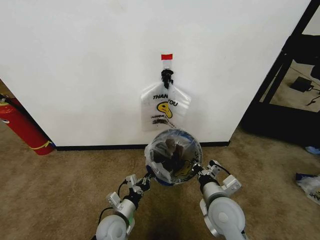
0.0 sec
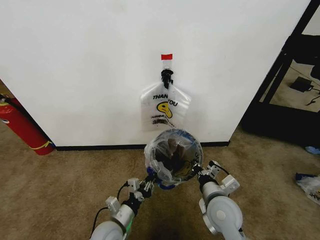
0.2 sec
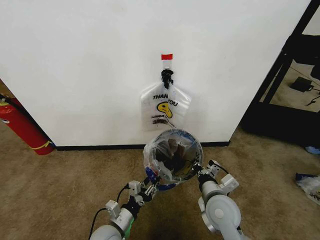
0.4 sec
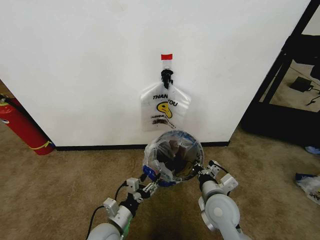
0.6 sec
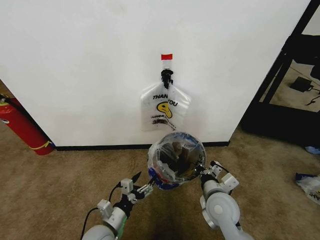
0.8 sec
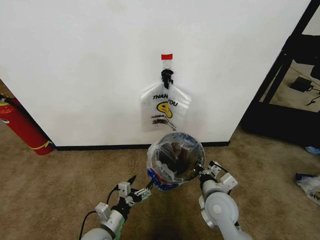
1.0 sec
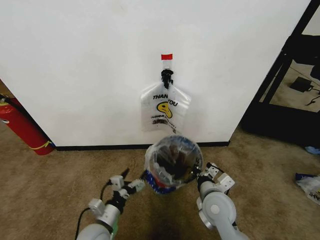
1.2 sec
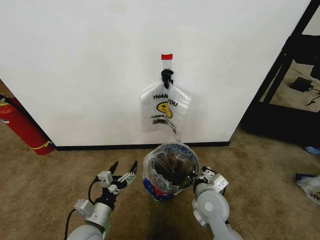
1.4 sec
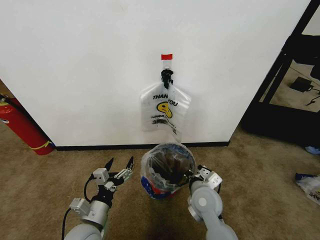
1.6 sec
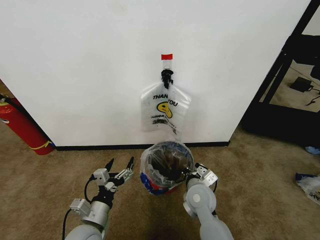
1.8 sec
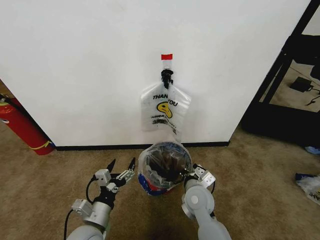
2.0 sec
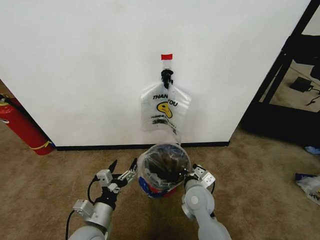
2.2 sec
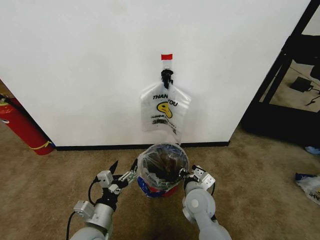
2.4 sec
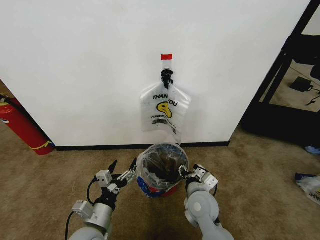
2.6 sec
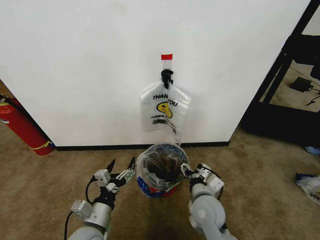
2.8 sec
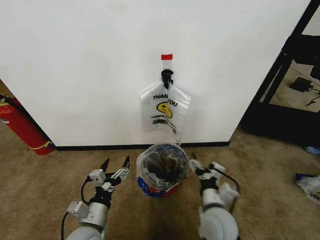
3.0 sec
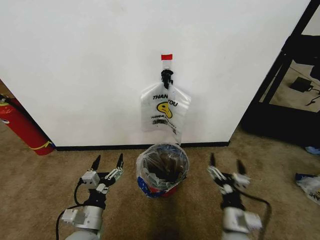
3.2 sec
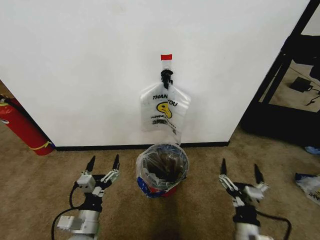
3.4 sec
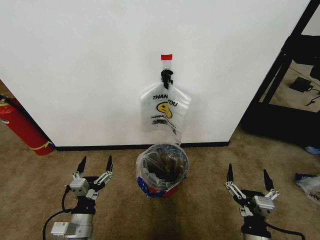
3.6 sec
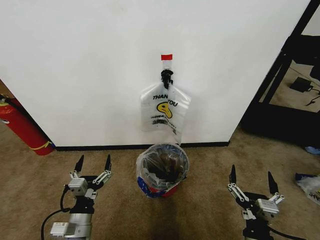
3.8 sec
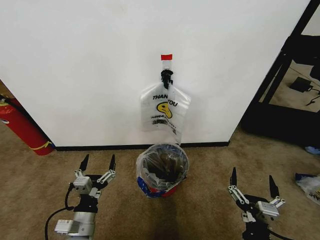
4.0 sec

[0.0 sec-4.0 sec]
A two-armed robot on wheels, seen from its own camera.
Task of the whole recording: Pick up the garbage bag from the wall and place it over the trash bin.
0.0 sec to 1.4 sec: The left gripper heads upward and to the left, covering approximately 10 cm, and opens up.
1.4 sec to 2.6 sec: The right gripper opens up.
2.6 sec to 4.0 sec: The right gripper travels backward and to the right by approximately 20 cm, and opens.

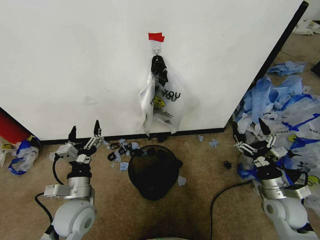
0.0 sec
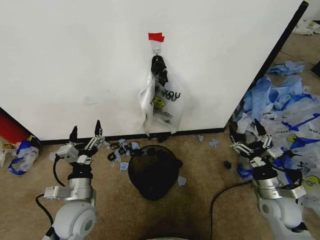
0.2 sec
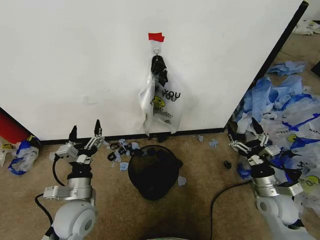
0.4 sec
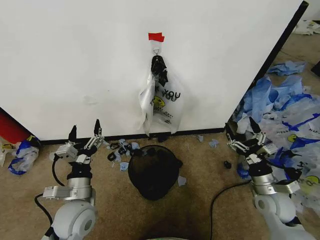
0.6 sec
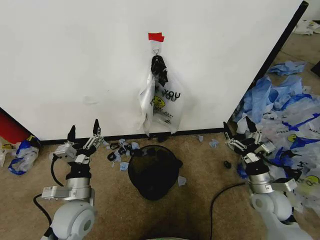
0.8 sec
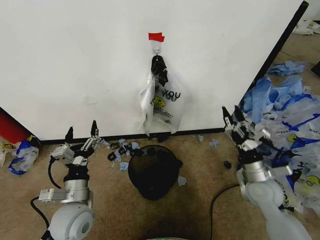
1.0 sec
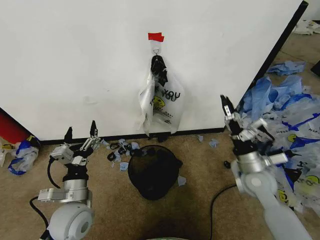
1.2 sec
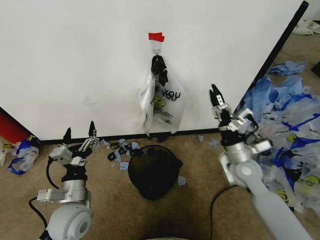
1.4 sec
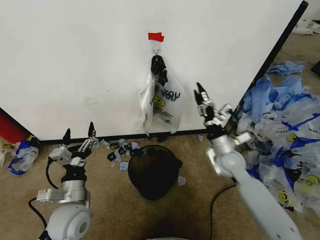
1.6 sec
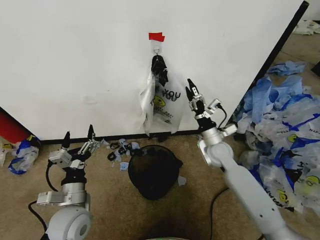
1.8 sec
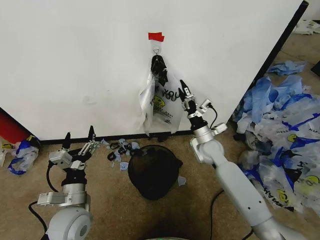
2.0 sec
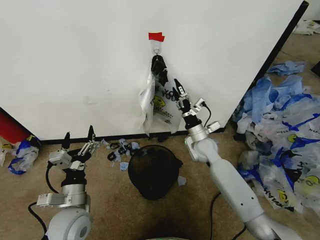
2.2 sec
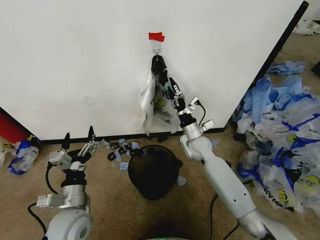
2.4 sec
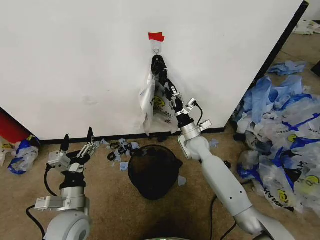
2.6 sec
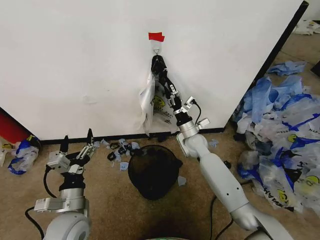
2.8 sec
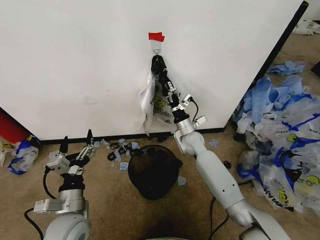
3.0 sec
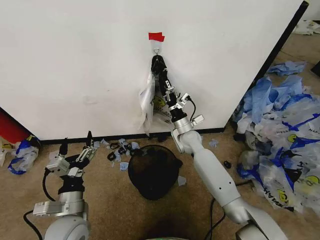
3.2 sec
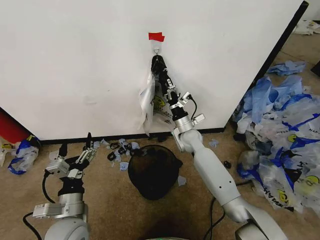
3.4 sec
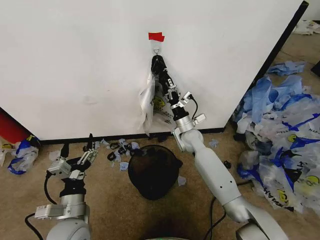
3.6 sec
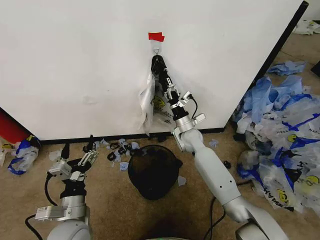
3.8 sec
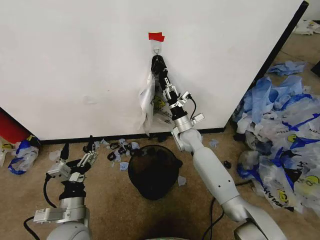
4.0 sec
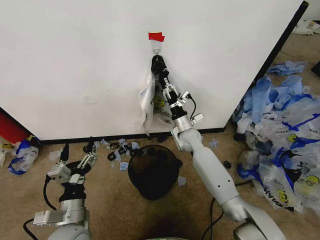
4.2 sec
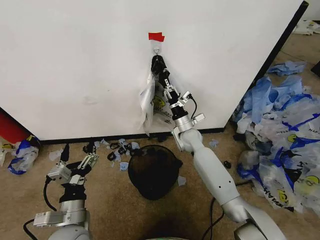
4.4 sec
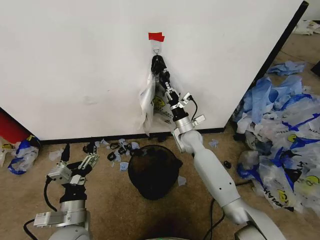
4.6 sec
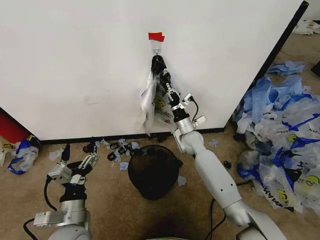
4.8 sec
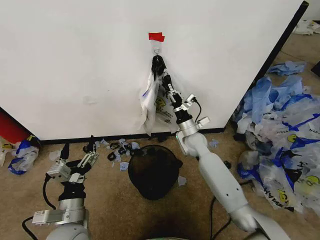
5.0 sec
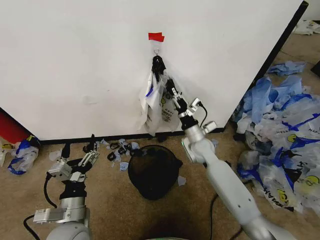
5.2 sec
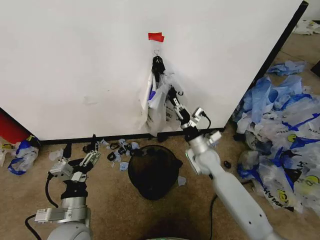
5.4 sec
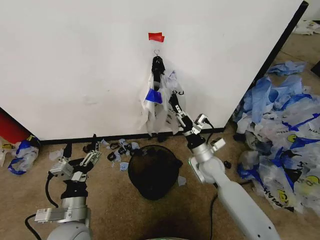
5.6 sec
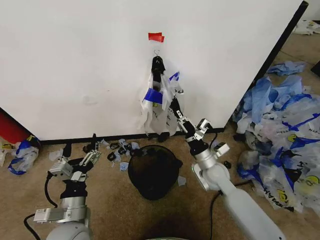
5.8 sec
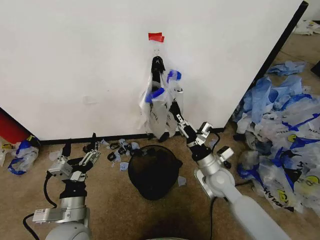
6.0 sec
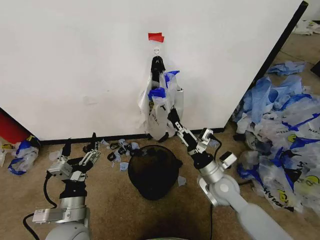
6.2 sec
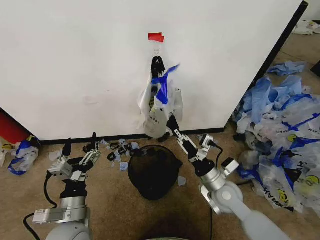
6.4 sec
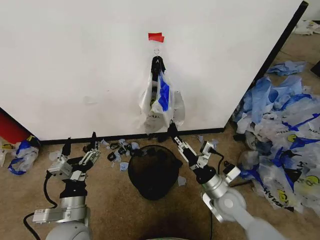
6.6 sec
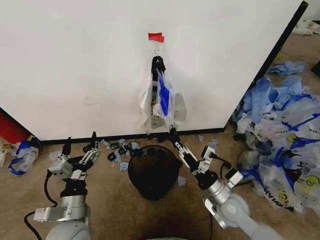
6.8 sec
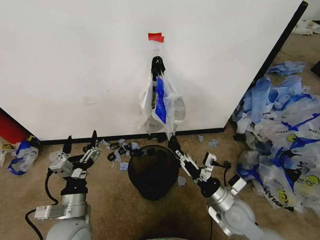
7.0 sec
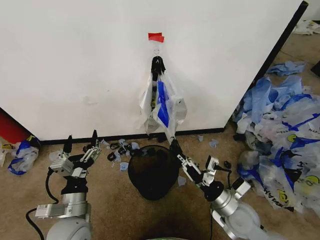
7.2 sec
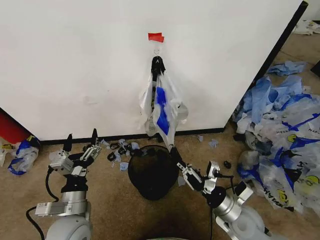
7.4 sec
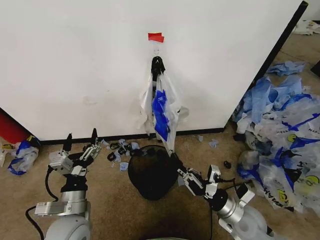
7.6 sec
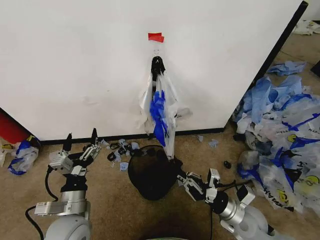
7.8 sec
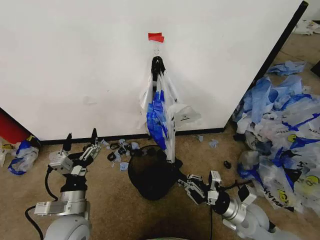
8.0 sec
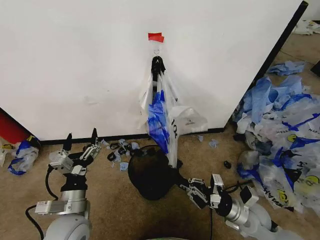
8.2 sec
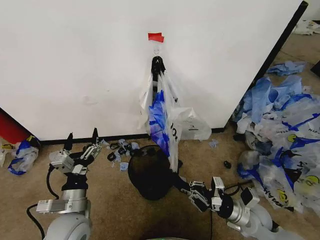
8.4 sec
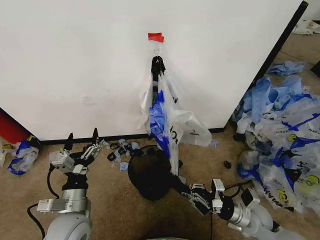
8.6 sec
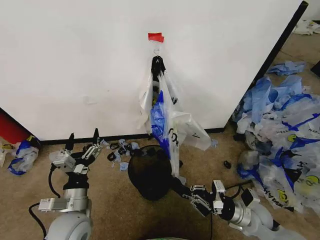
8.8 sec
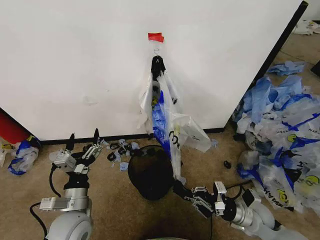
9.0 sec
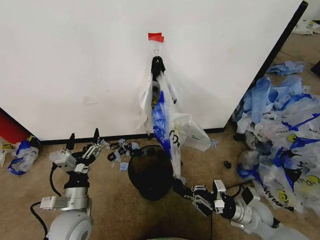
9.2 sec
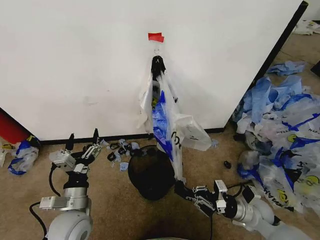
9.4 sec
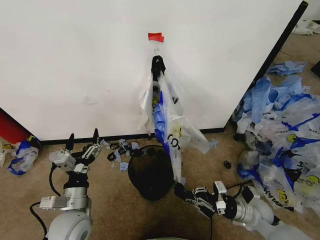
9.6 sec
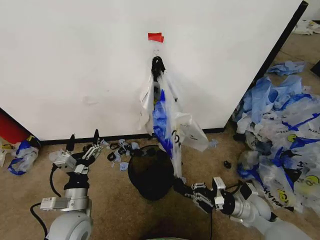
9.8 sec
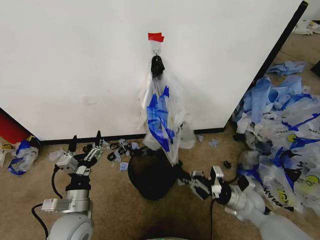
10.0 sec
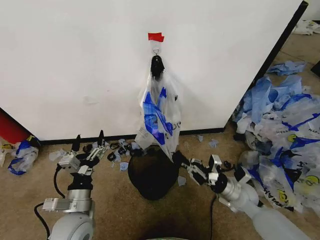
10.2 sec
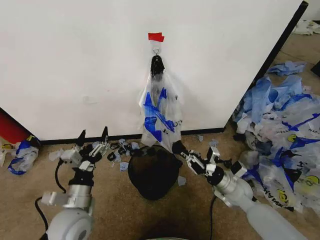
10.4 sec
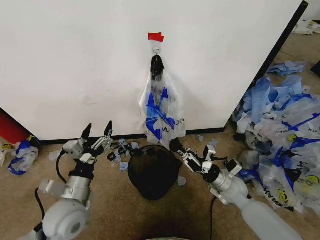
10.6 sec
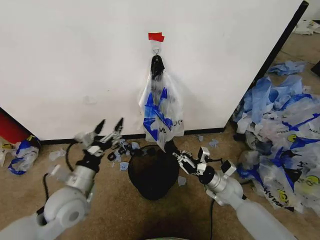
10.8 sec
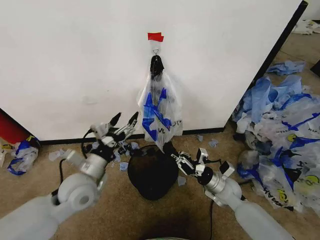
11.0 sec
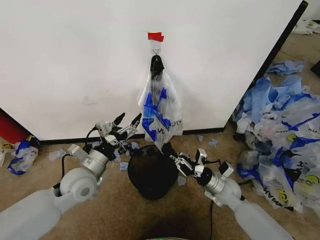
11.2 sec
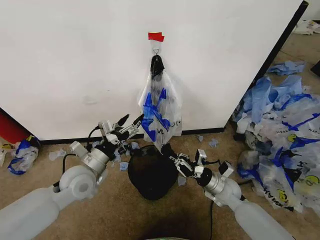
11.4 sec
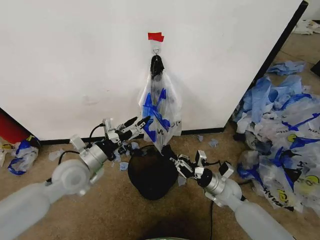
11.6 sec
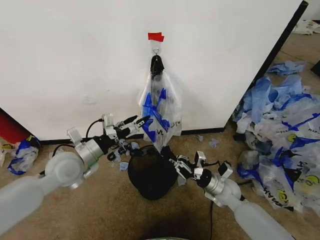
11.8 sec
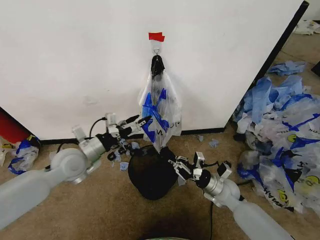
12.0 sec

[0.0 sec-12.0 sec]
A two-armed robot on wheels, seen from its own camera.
Task of the whole recording: Pick up the garbage bag from the wall and place it over the trash bin.
1.6 sec to 3.0 sec: The right gripper is displaced forward and to the left by about 15 cm.
3.0 sec to 4.4 sec: The right gripper closes.
4.4 sec to 6.0 sec: The right gripper goes about 15 cm backward.
6.0 sec to 7.6 sec: The right gripper goes roughly 15 cm backward and to the right.
7.6 sec to 9.0 sec: The right gripper heads to the right, covering about 5 cm.
9.0 sec to 10.4 sec: The right gripper shifts some 10 cm forward.
10.4 sec to 12.0 sec: The left gripper is displaced forward and upward by some 15 cm.

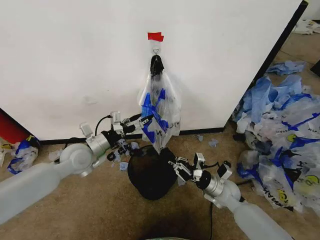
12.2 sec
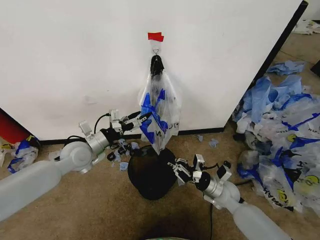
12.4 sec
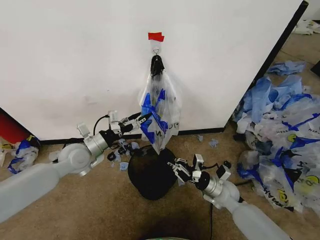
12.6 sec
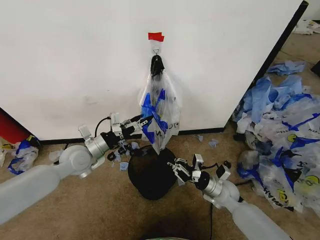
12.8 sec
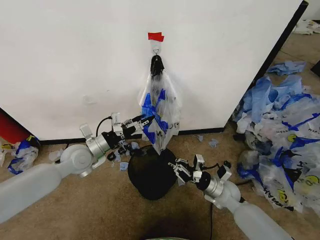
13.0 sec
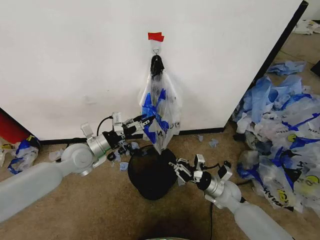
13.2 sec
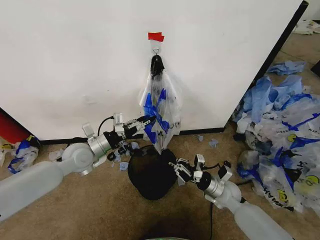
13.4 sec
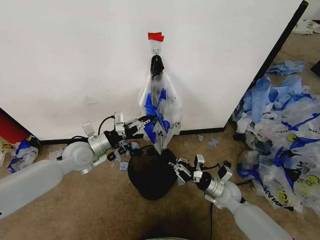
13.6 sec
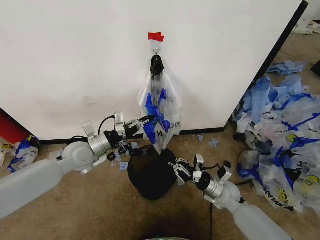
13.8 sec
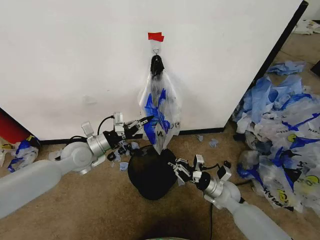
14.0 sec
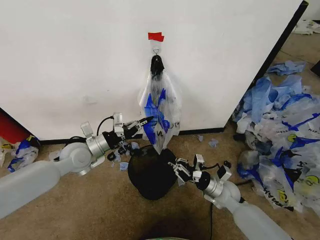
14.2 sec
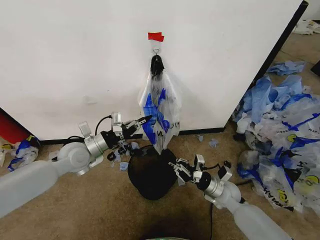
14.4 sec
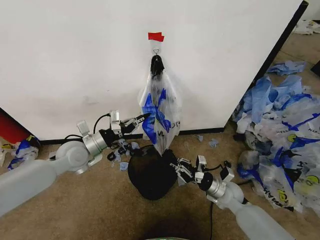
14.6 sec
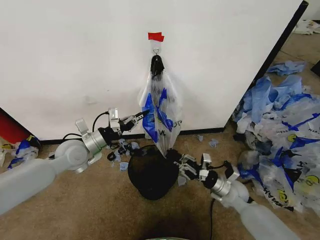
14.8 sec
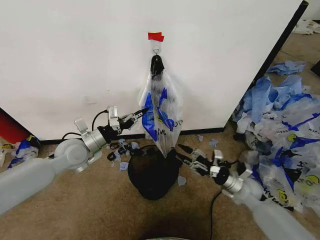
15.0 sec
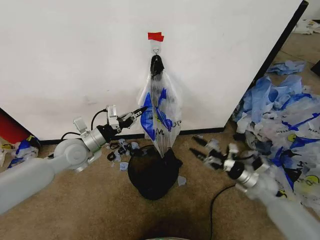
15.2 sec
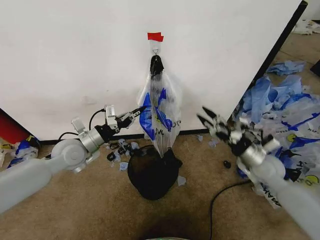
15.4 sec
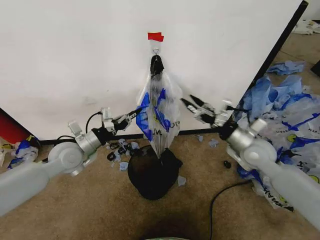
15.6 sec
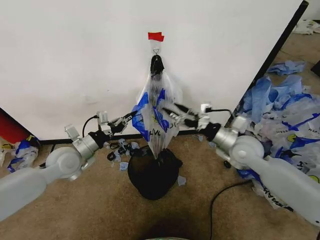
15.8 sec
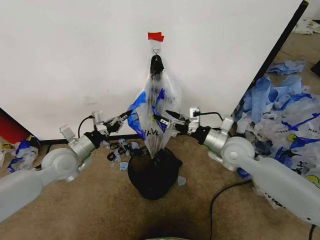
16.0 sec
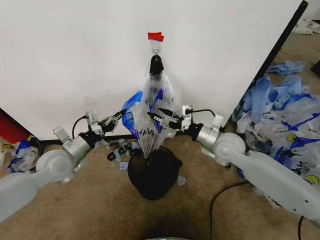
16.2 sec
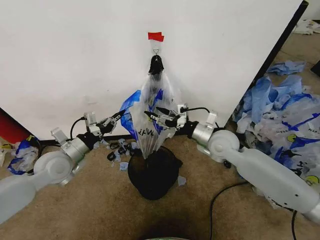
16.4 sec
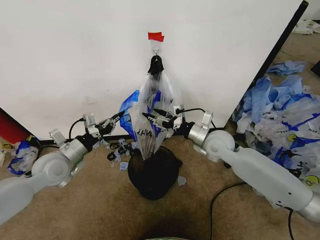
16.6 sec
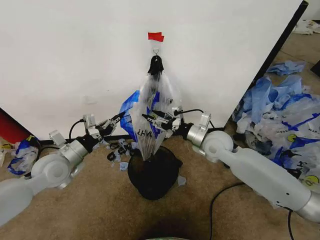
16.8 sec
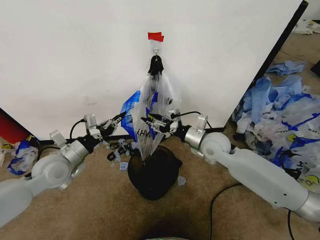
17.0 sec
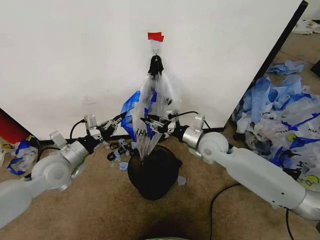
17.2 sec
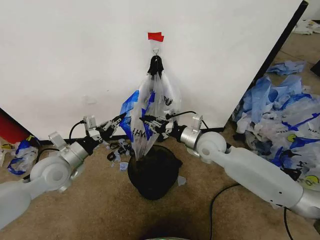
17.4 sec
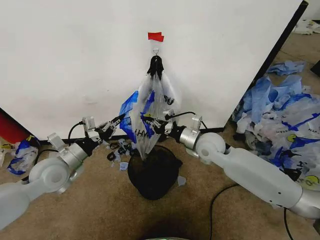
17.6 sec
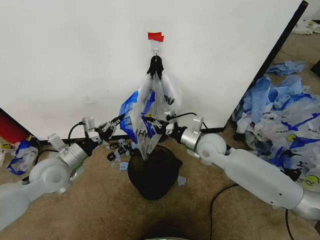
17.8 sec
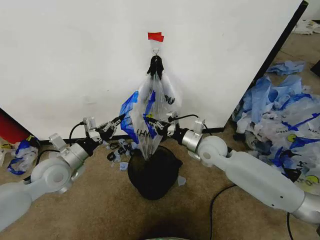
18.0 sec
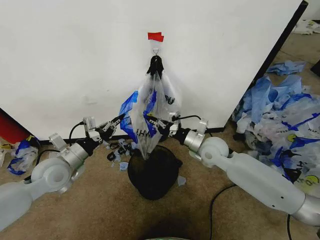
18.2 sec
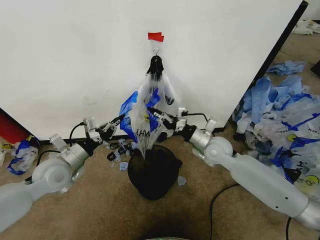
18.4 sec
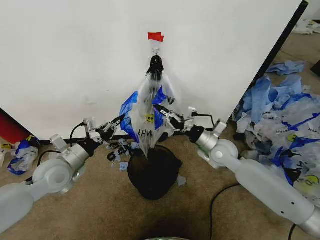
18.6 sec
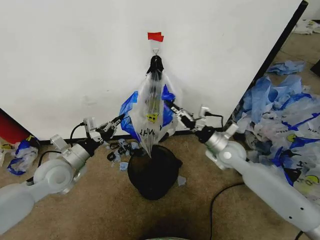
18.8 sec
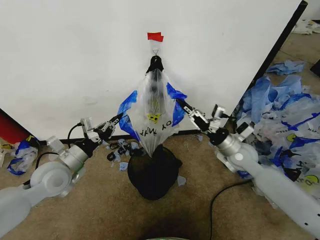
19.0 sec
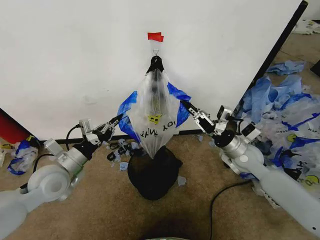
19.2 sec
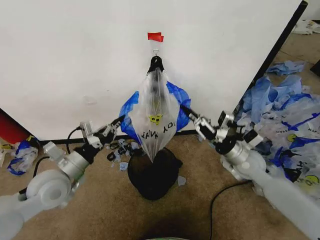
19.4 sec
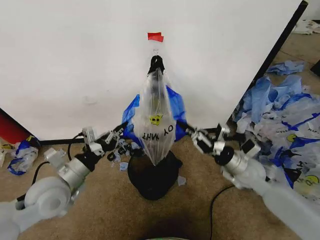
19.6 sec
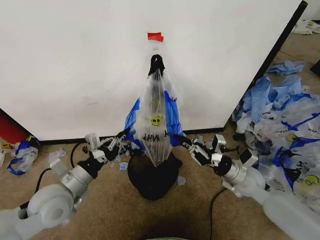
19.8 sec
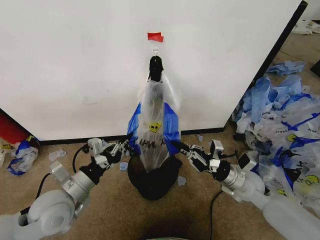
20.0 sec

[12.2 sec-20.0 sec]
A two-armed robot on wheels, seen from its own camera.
Task of the whole recording: Pick up the garbage bag from the wall and place it over the trash bin.
12.2 sec to 13.8 sec: The left gripper closes.
13.8 sec to 15.4 sec: The right gripper shifts roughly 15 cm upward and to the right, and opens.
15.4 sec to 16.8 sec: The right gripper shifts some 15 cm to the left and forward, while the left gripper shifts by roughly 5 cm.
16.8 sec to 18.4 sec: The right gripper closes up.
18.4 sec to 20.0 sec: The right gripper heads backward, to the right and downward, covering some 15 cm. The left gripper shifts about 10 cm backward.
